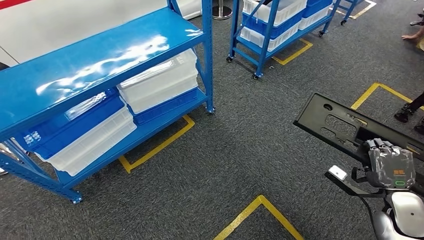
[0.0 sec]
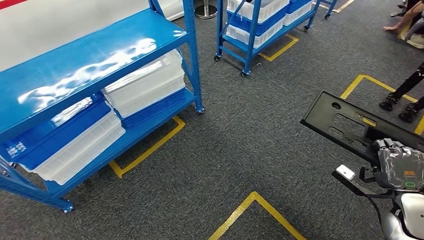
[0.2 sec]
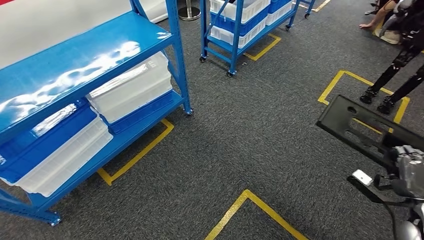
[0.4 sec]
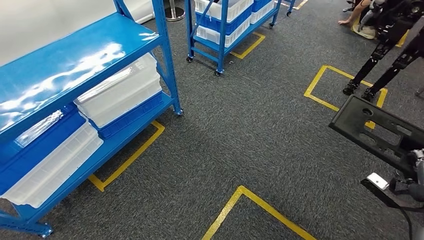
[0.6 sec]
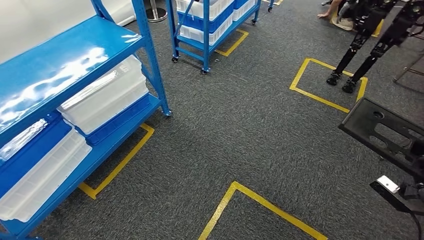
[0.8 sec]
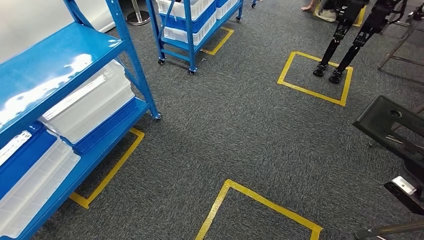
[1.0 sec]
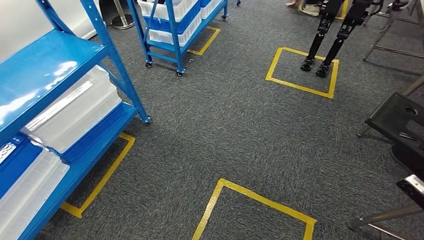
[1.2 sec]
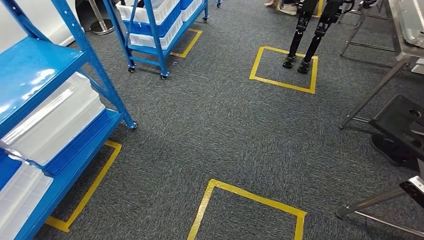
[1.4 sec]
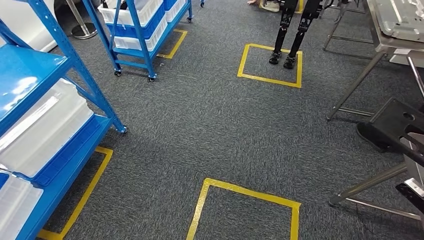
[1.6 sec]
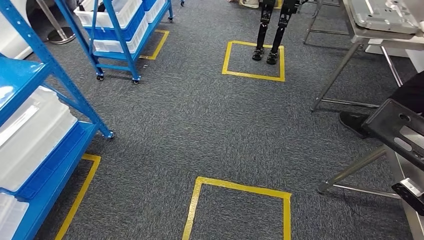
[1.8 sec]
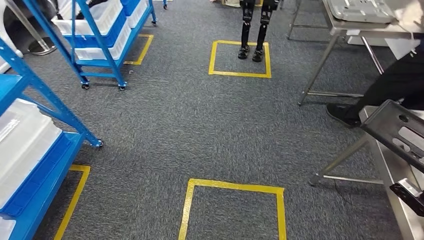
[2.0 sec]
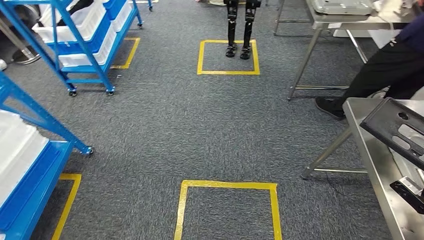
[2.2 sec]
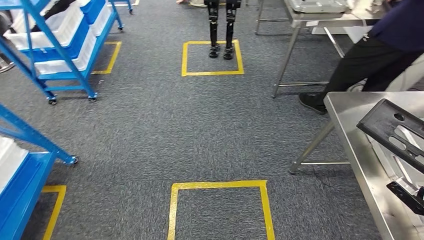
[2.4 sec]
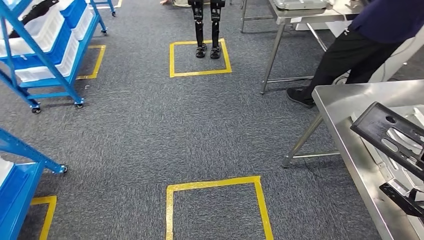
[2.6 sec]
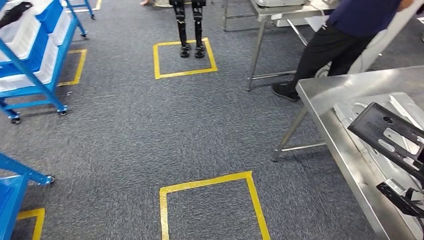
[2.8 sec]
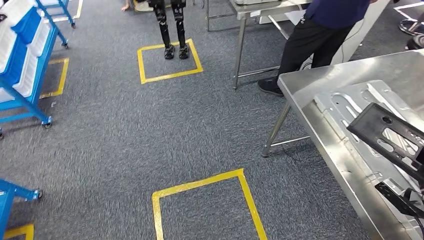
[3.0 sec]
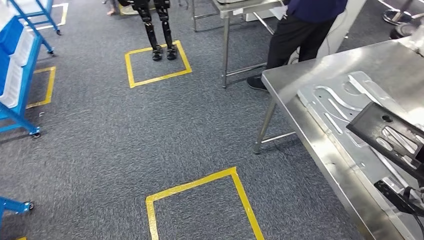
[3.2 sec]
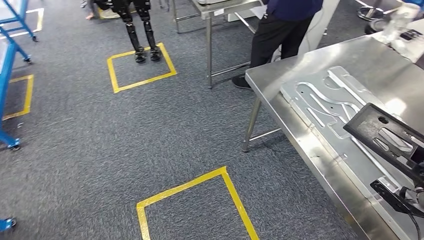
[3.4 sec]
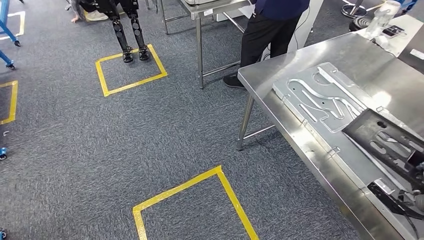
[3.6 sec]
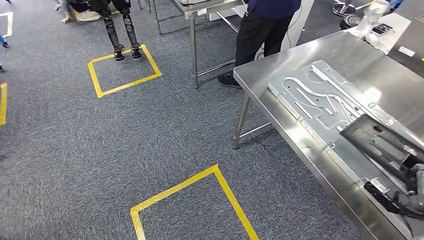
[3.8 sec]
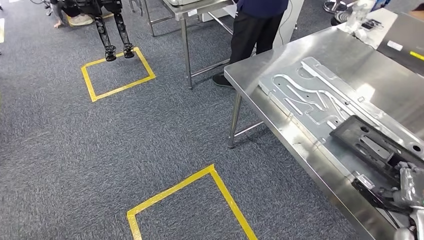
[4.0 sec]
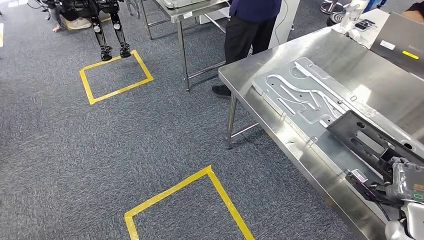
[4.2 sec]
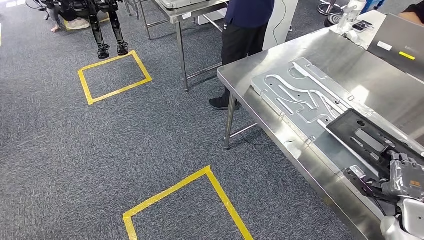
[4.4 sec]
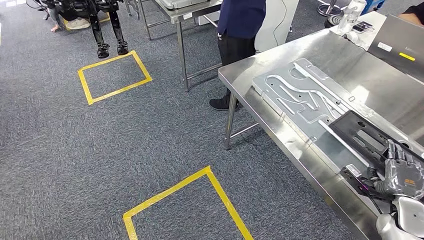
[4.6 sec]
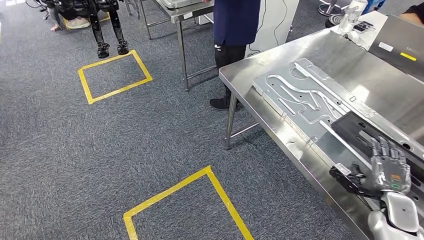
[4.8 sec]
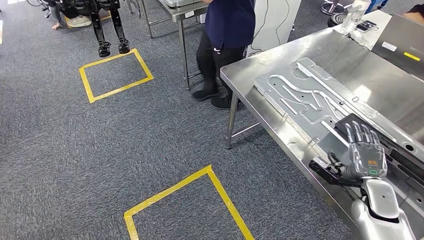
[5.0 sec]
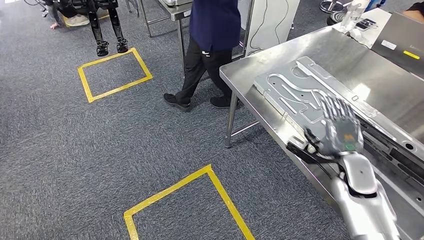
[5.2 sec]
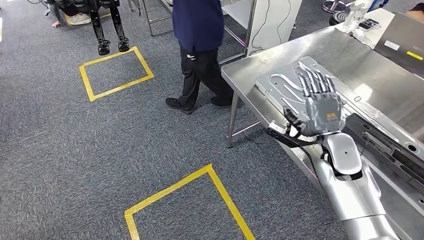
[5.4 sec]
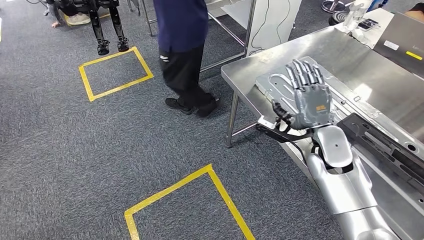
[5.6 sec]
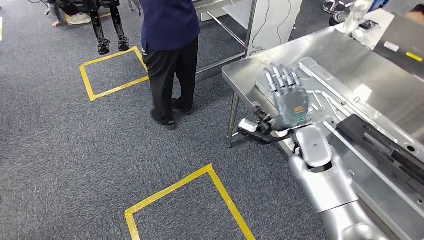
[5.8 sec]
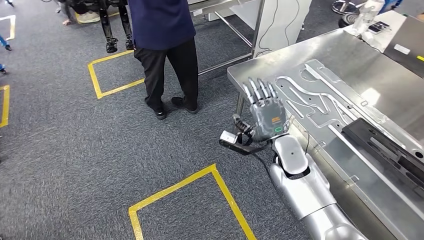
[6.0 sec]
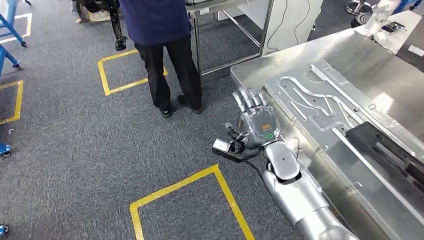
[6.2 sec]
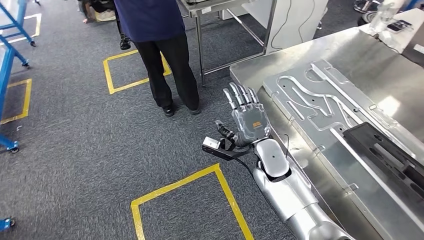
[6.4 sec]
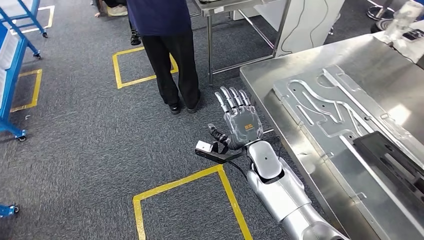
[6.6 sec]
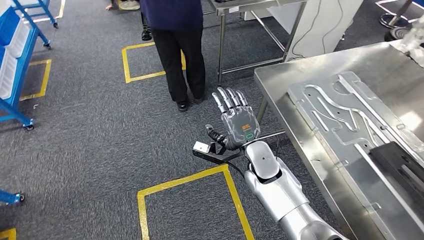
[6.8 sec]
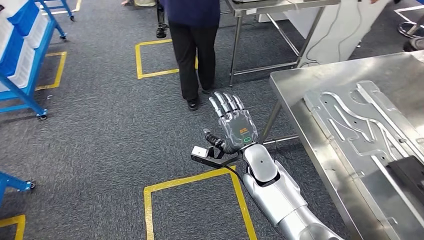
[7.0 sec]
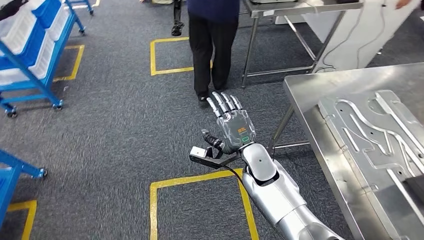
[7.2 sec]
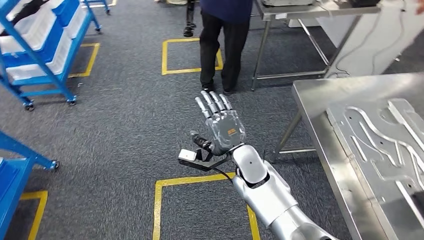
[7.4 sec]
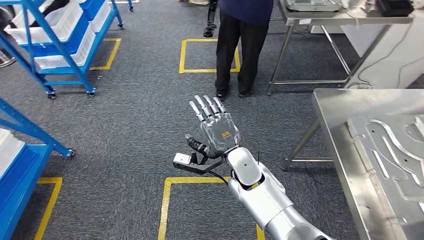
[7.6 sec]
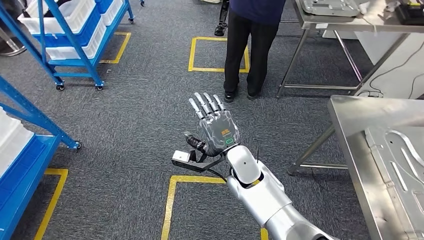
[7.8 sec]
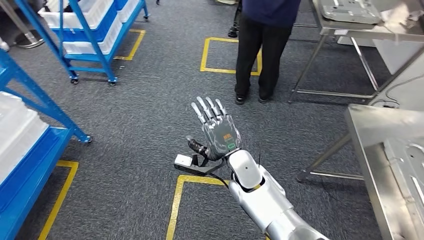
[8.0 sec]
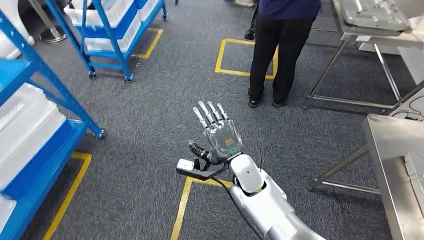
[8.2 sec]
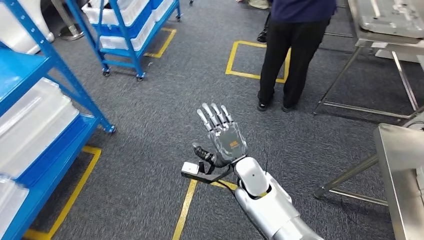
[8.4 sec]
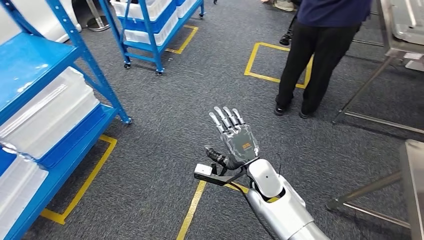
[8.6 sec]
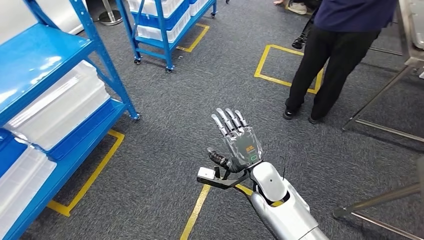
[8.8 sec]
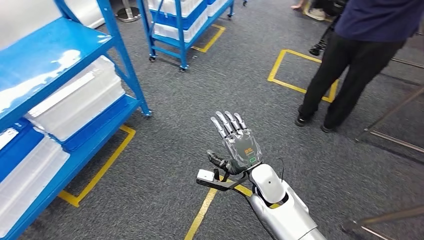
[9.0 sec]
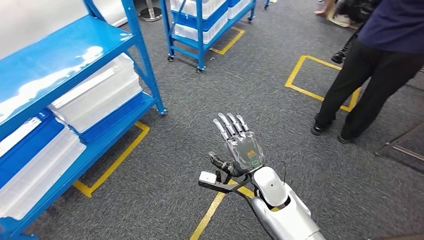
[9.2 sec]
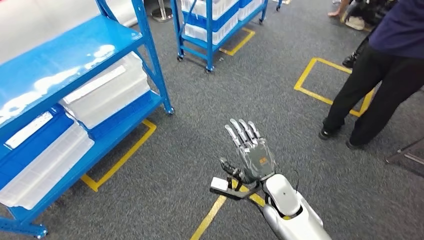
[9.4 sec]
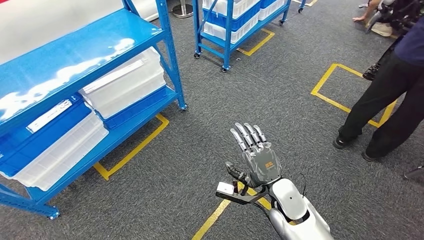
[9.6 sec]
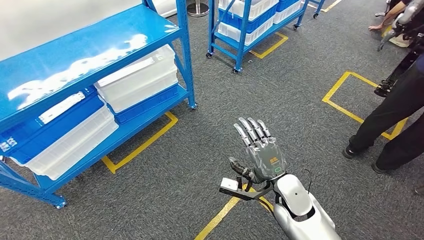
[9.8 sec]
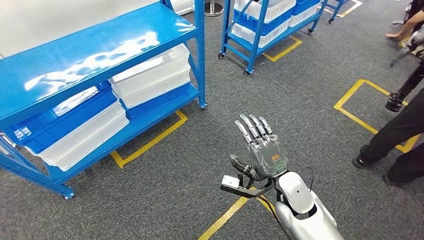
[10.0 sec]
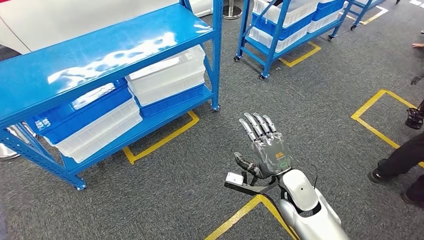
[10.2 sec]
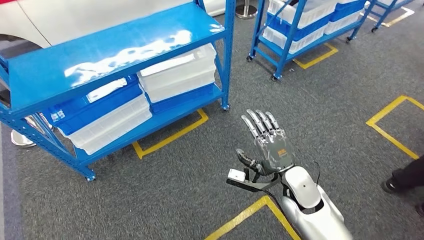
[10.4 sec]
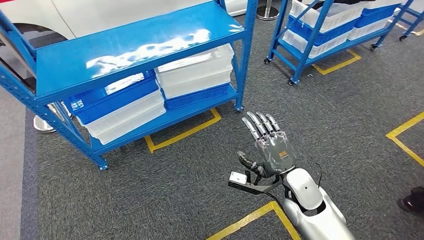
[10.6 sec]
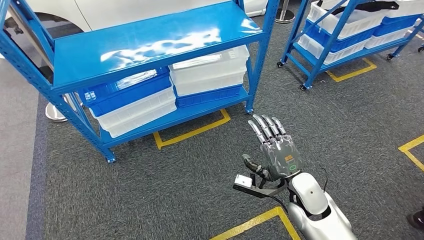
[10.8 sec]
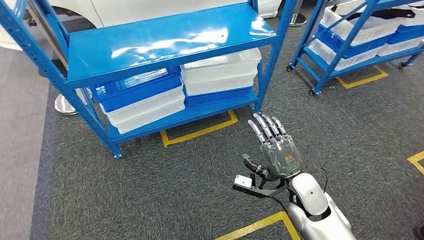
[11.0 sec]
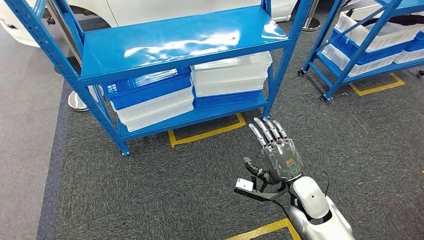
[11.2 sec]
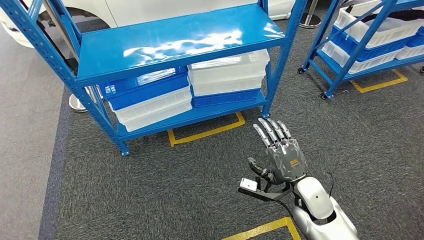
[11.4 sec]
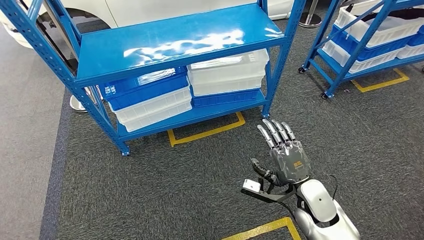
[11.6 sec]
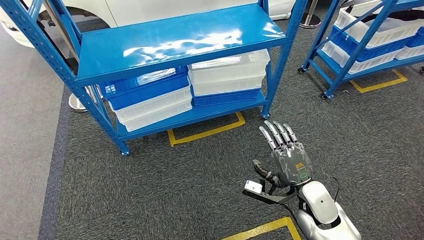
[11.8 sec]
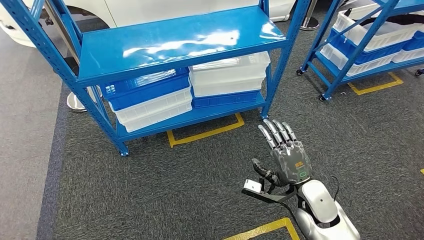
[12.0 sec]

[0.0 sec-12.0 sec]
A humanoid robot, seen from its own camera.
Step, 2.8 sec to 7.4 sec: Insert the large material into the corresponding slot on the workbench.

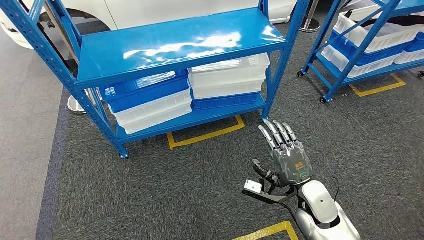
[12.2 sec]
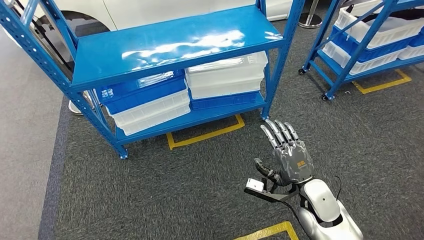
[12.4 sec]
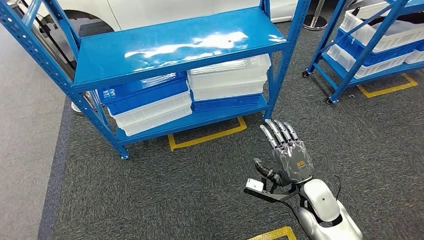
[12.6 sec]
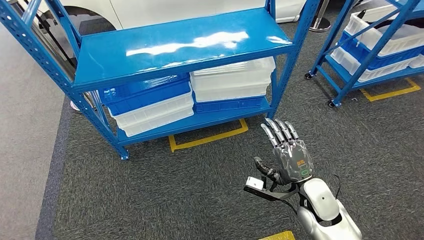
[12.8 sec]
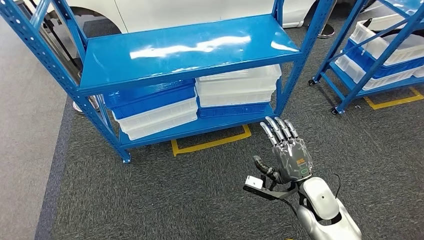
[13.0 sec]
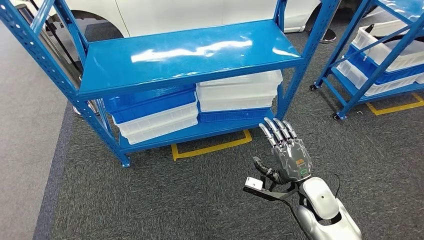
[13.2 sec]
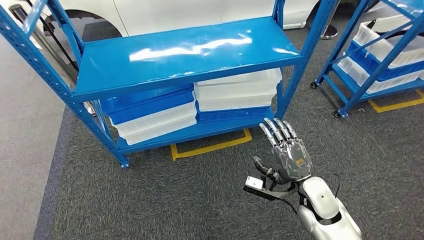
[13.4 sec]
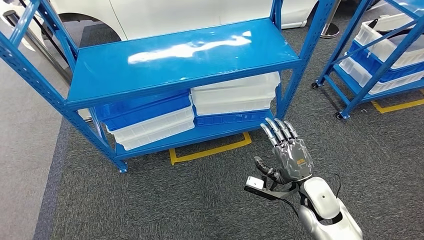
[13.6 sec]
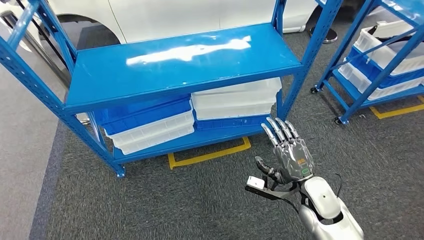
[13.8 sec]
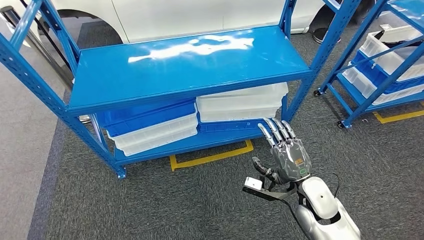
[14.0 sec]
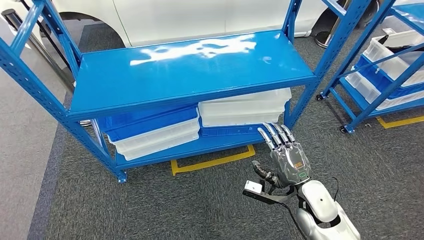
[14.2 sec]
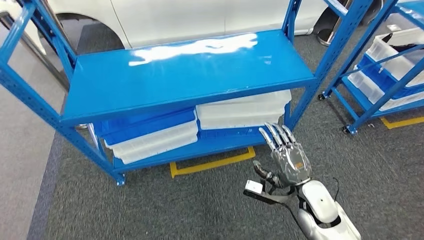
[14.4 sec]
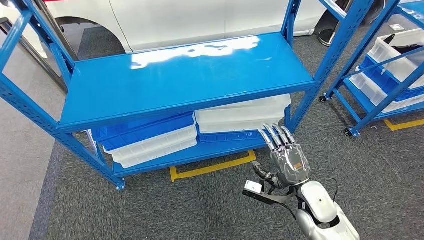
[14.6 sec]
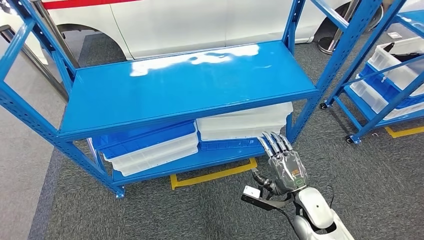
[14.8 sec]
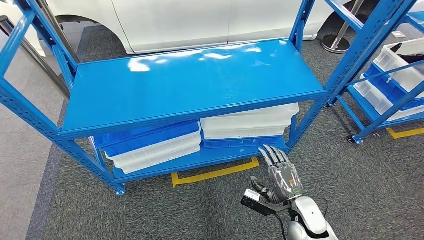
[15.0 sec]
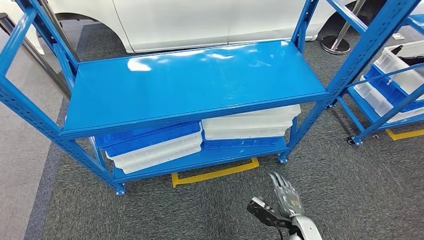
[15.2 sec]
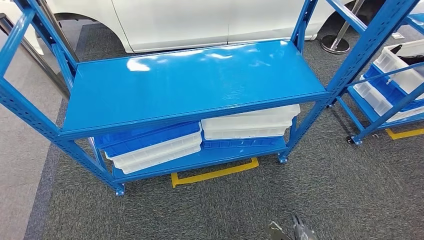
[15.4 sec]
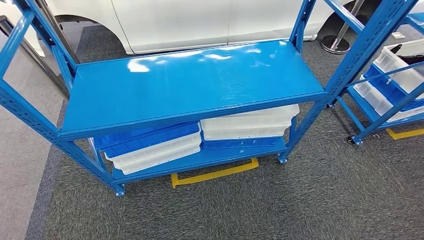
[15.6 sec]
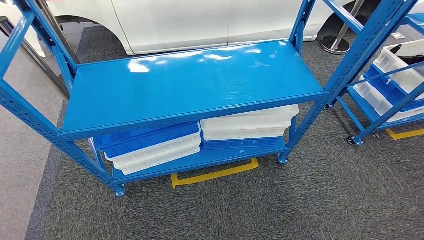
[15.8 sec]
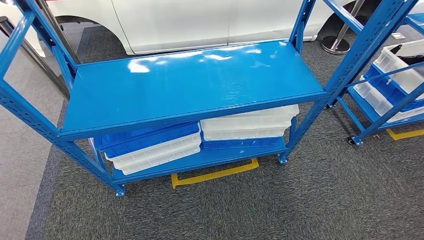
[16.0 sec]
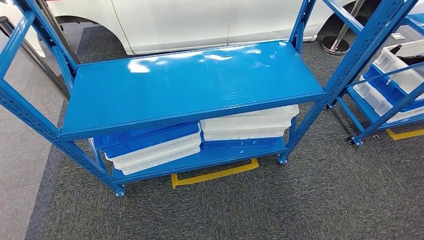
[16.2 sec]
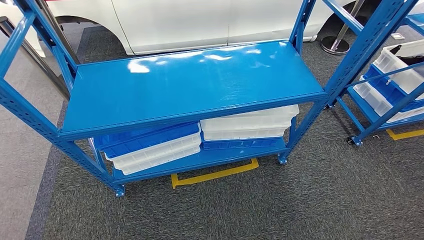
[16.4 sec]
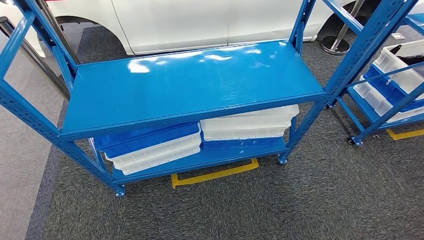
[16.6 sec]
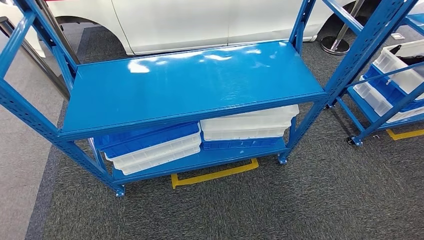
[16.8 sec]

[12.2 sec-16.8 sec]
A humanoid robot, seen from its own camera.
Step, 12.2 sec to 16.8 sec: Move to the initial position of the shelf.
15.2 sec to 16.8 sec: The right hand heads backward and downward, covering roughly 25 cm.
